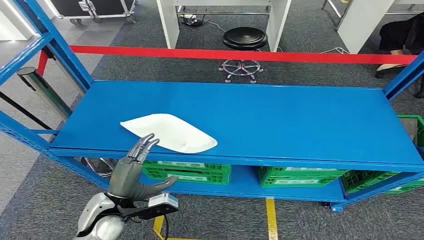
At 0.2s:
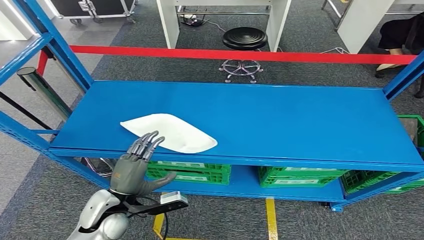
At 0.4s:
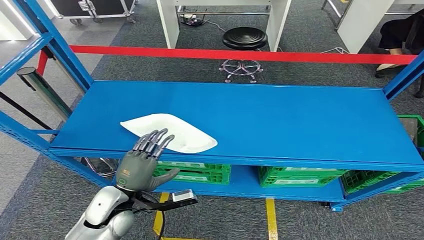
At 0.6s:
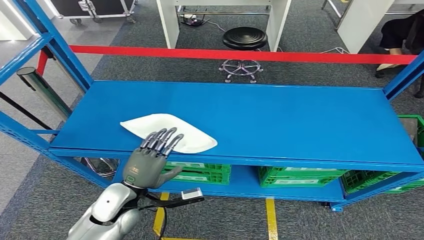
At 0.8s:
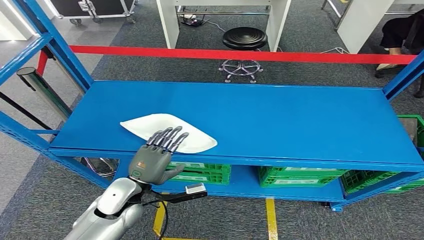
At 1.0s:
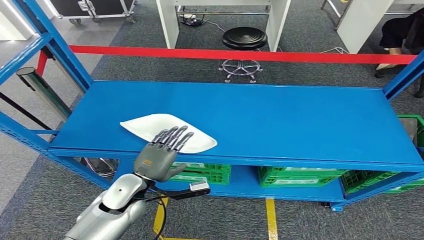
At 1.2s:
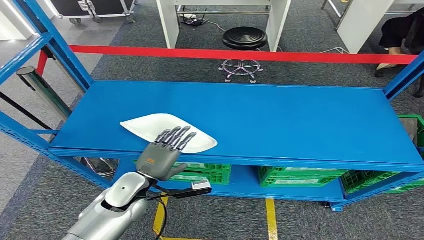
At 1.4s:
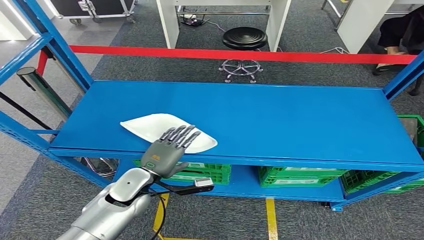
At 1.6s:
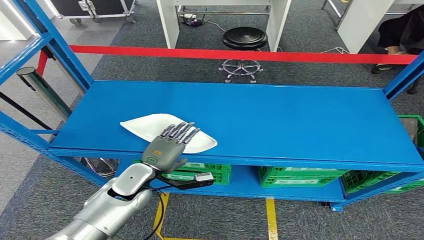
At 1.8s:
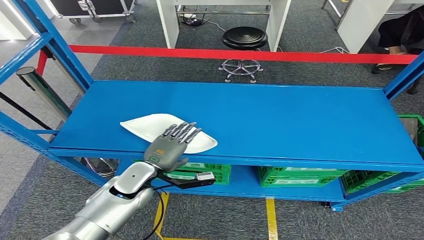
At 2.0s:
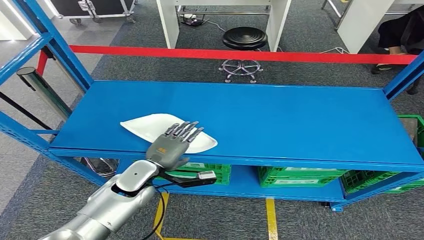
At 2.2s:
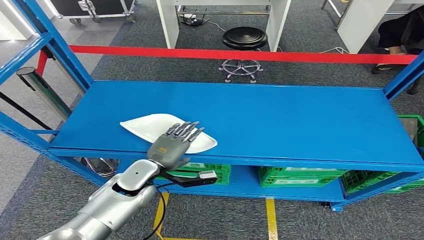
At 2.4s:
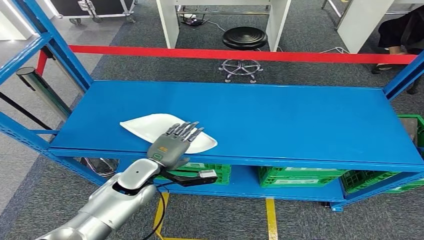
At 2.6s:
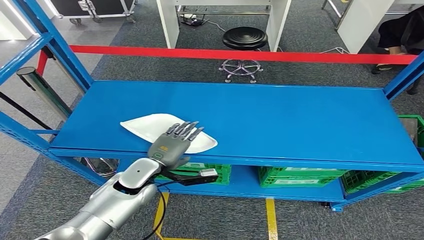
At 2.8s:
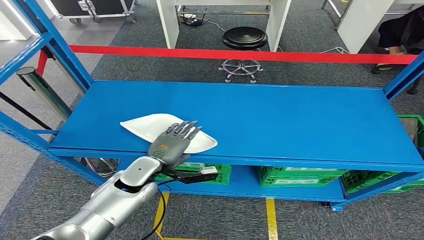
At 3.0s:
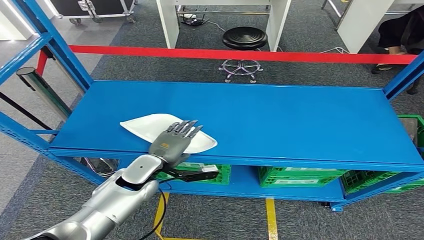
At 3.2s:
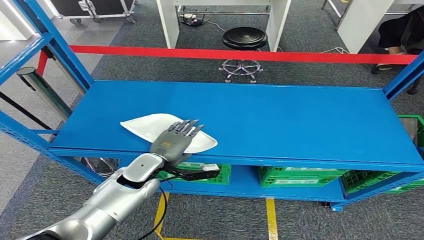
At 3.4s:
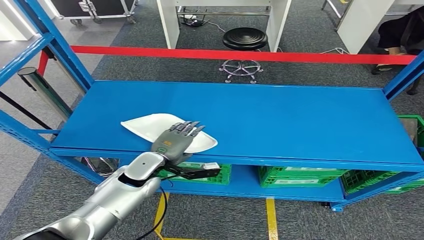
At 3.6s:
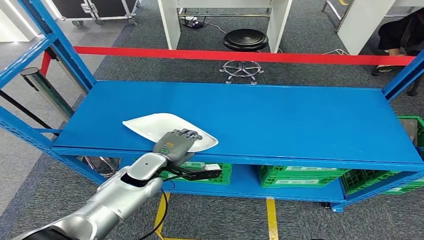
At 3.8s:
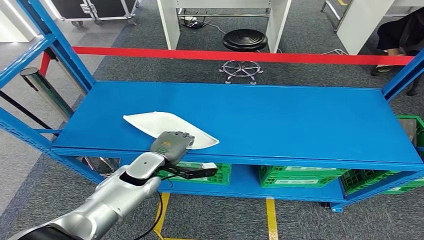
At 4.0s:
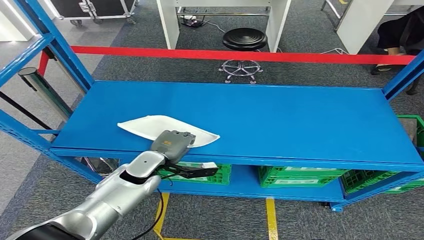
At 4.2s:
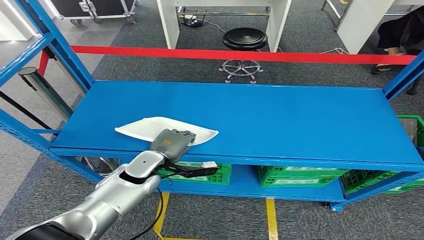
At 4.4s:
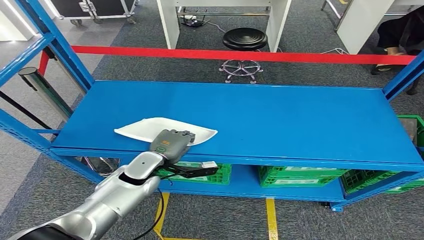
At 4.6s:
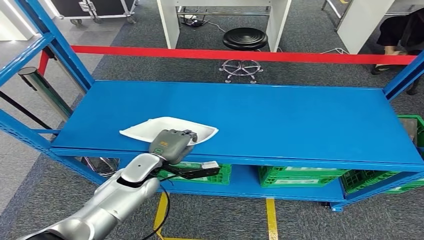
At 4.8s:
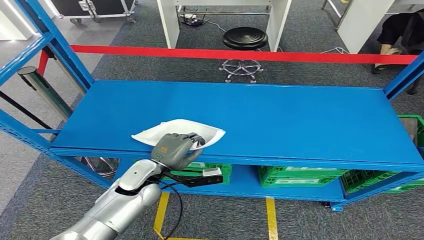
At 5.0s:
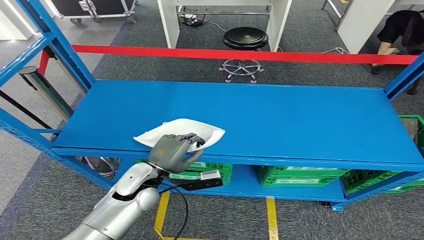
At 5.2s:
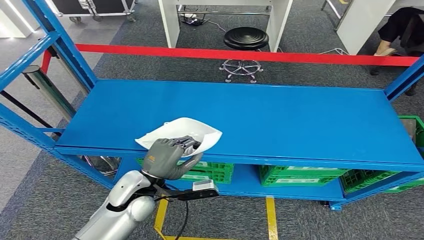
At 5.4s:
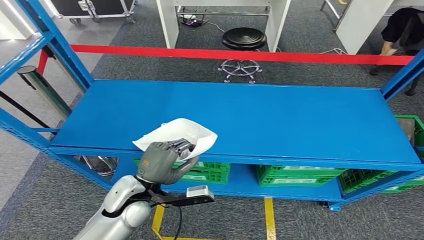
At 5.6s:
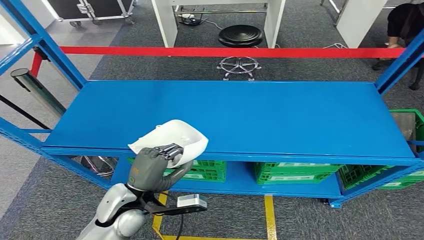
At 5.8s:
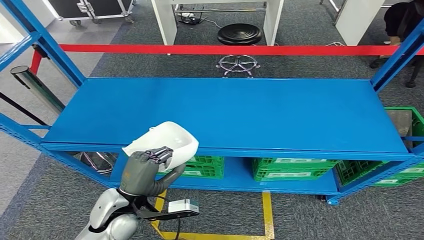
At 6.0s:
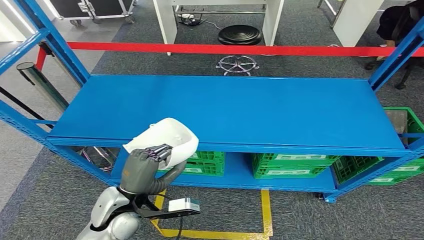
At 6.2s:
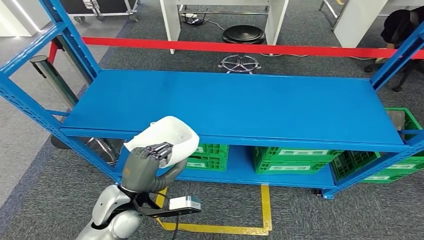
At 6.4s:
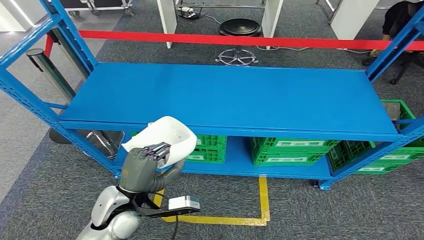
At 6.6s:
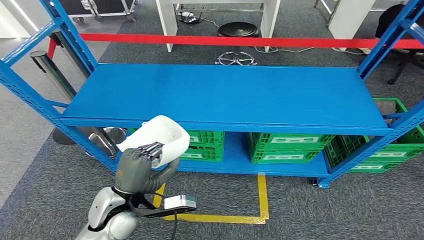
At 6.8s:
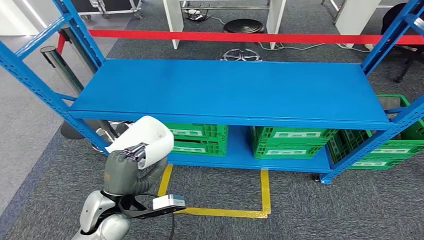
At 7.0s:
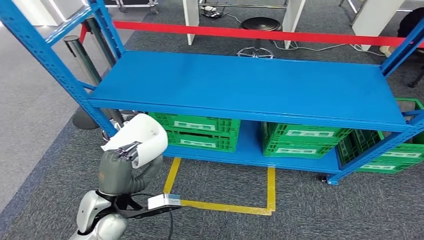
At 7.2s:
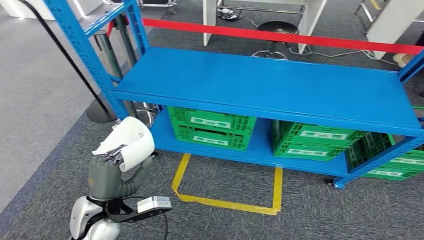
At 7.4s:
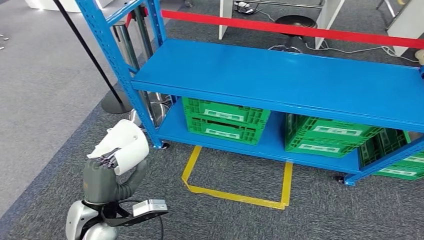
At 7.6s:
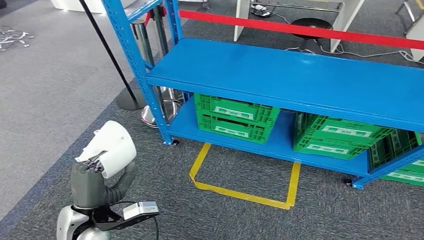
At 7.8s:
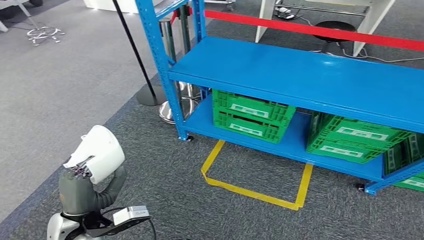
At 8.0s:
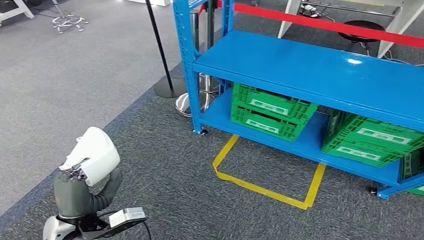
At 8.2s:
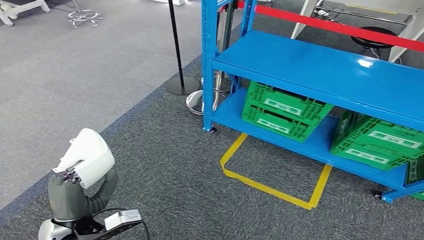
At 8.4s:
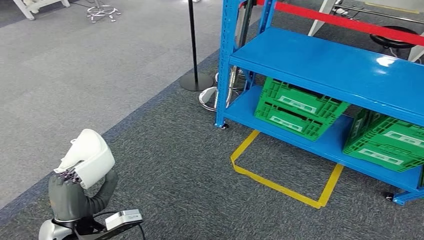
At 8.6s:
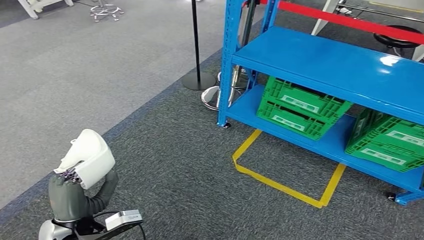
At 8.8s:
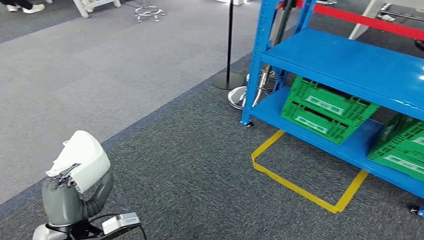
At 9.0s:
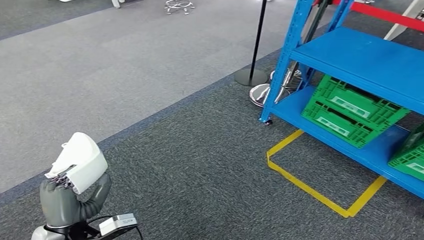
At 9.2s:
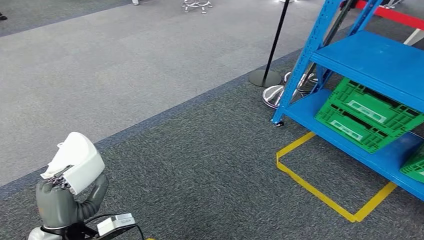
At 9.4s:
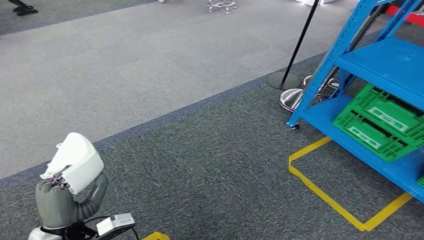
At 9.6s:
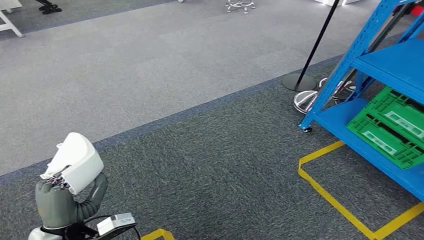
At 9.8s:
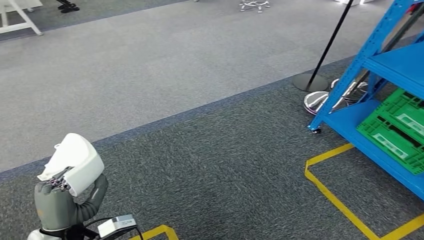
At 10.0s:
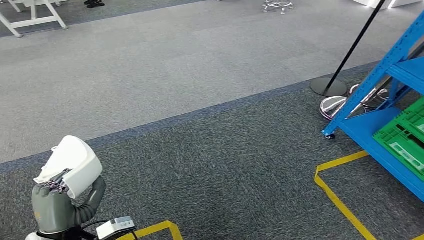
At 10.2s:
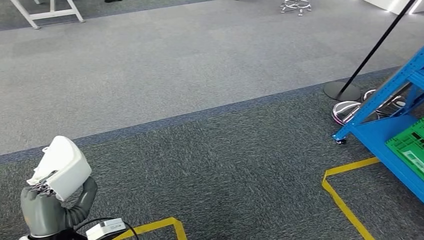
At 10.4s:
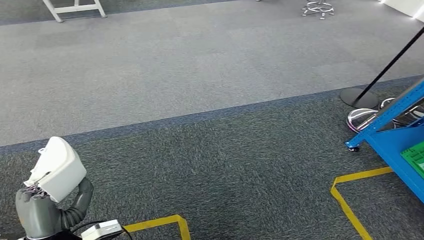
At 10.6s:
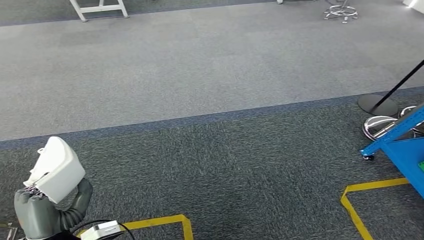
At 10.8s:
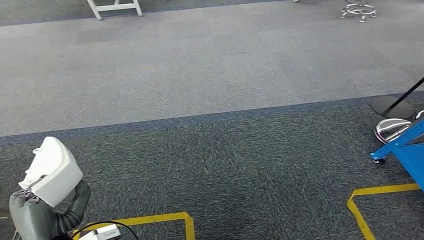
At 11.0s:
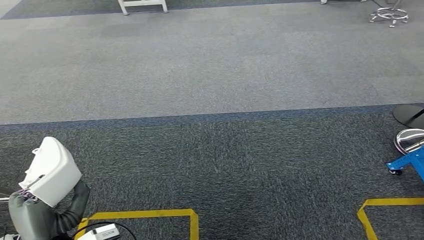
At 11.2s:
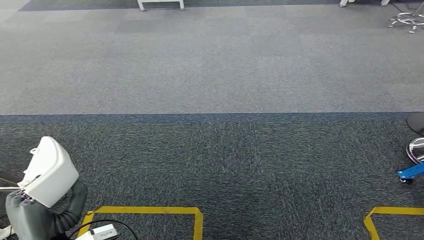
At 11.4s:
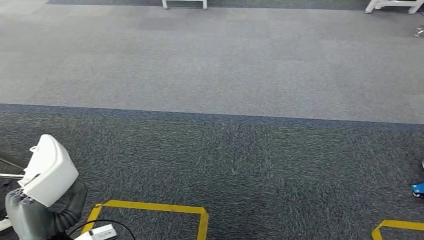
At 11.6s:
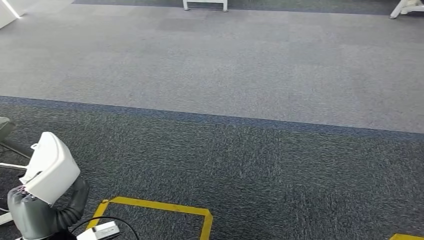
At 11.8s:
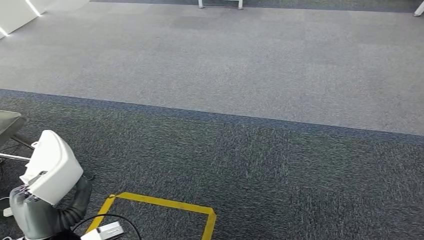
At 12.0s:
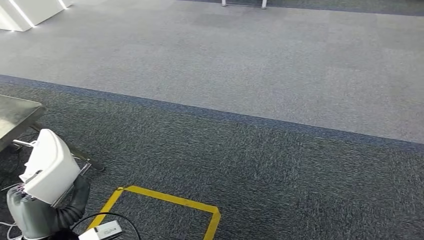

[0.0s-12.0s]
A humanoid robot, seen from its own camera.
Step, 0.0s to 7.0s: Pick up the small component from the shelf.
1.6s to 4.4s: The hands stay close to where they were, moving slightly.

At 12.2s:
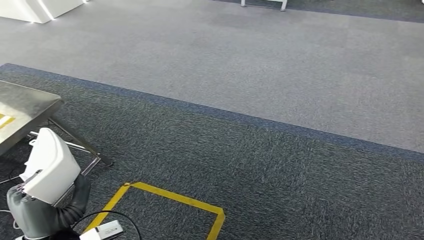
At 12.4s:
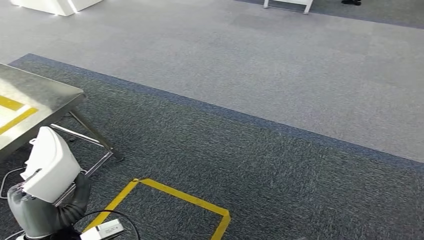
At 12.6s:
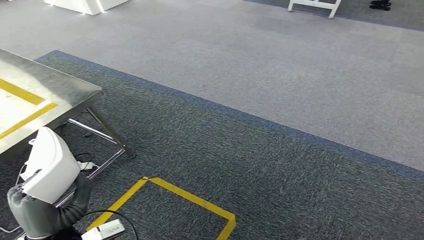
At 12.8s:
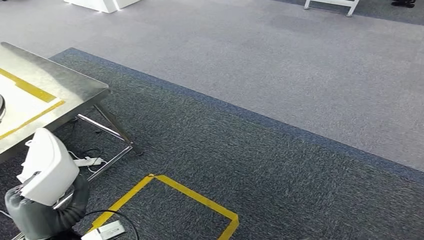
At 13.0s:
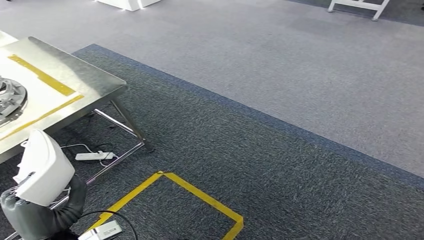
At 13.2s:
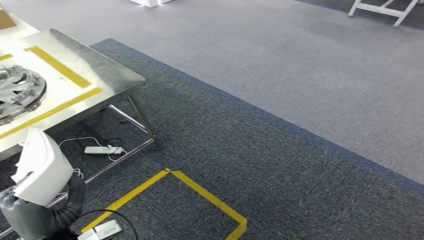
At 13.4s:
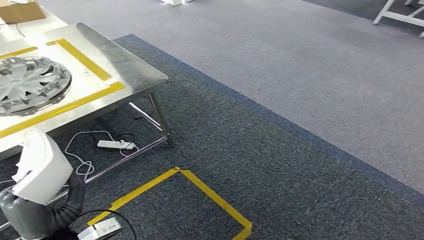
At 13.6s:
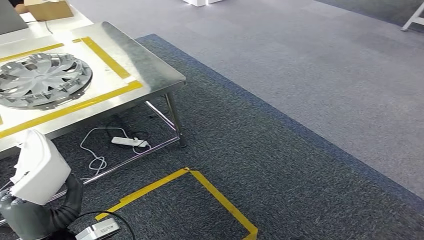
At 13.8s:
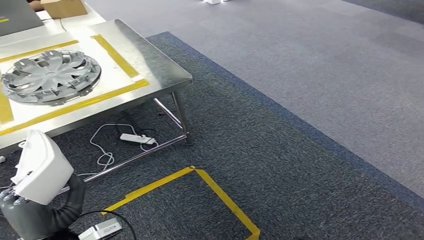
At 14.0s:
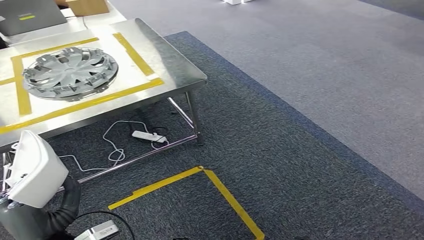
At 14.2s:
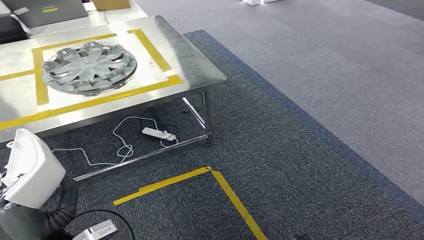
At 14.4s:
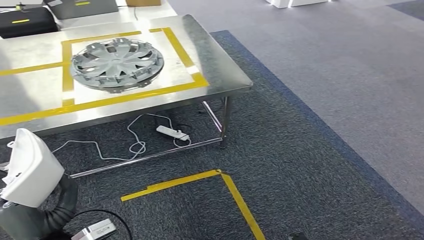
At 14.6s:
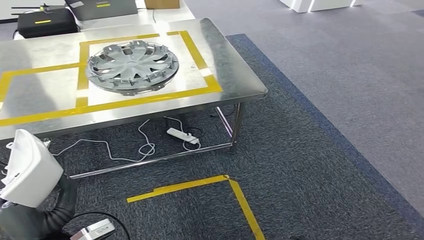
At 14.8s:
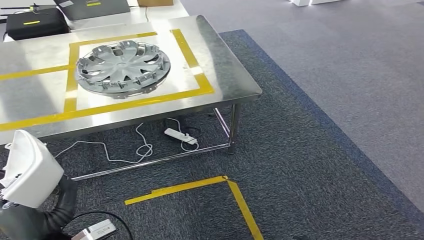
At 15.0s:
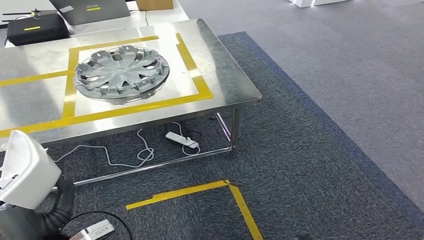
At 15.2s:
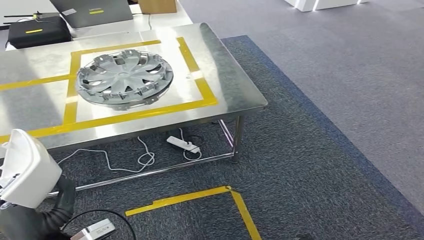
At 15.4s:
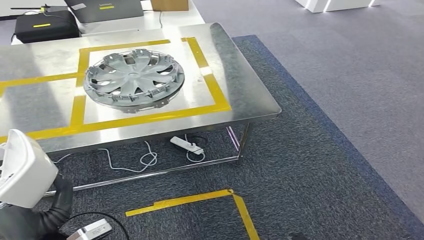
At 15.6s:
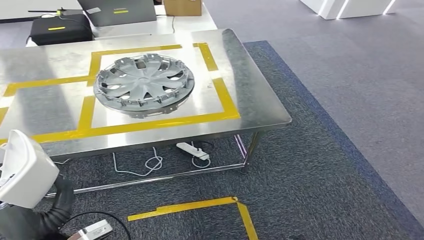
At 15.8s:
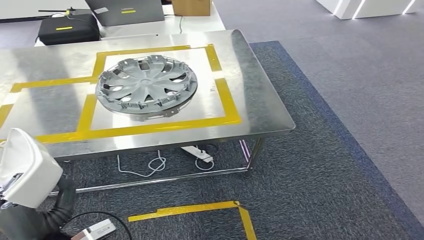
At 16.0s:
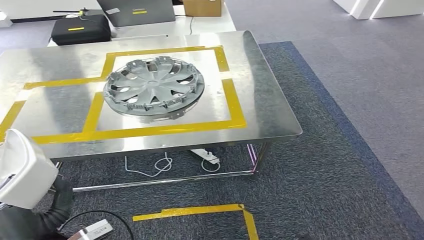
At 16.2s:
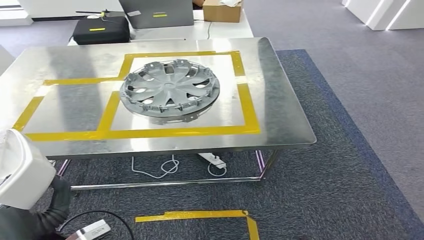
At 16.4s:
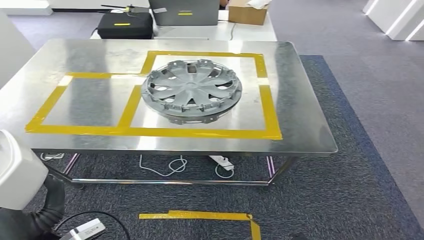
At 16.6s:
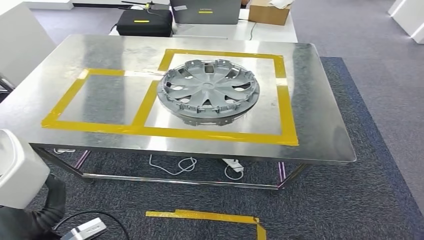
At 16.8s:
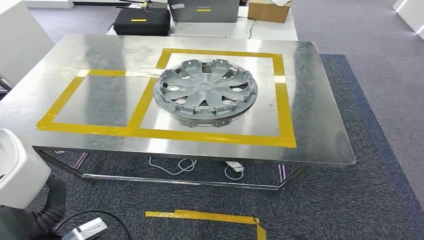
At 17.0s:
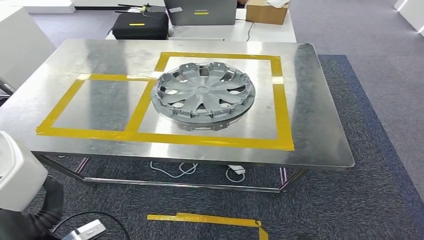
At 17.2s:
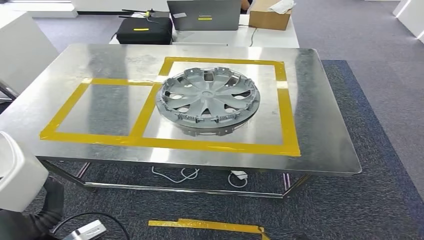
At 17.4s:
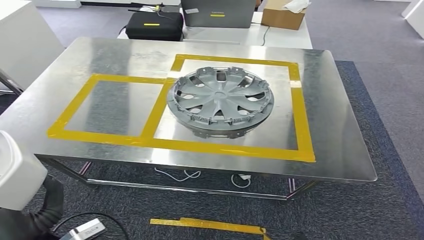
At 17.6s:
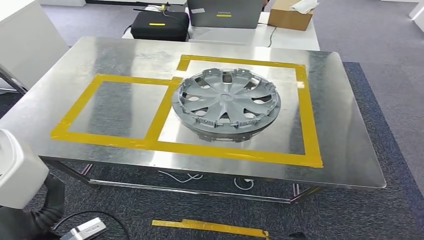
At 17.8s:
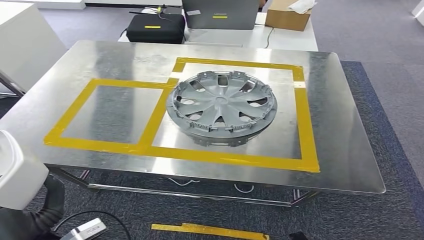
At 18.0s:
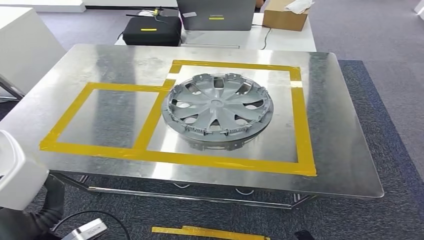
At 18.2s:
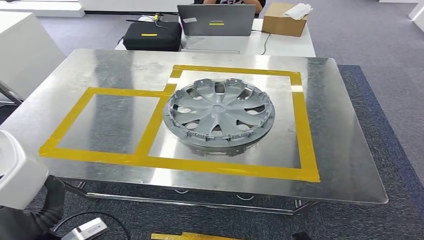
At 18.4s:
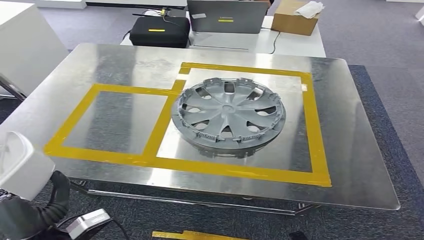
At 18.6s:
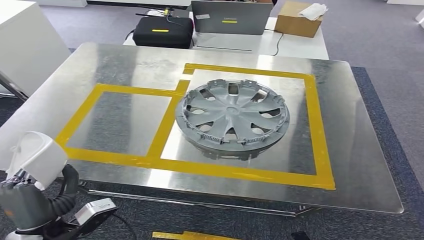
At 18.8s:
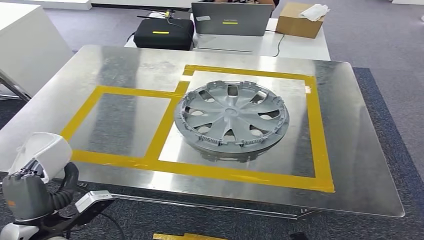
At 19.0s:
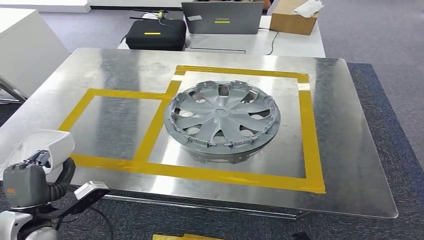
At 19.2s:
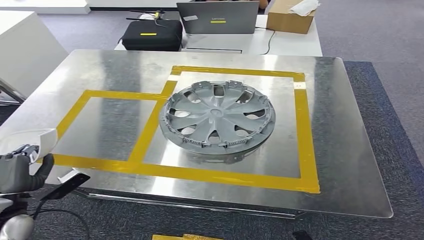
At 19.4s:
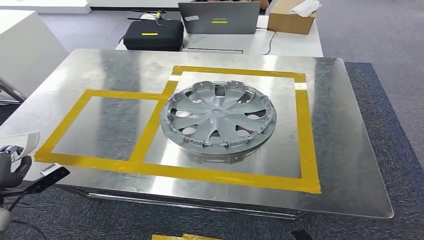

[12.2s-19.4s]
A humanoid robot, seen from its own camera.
Step, 12.2s to 16.2s: Bring the small component to the front of the workbench.
